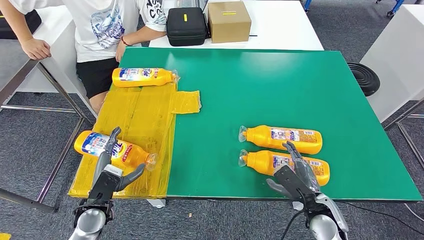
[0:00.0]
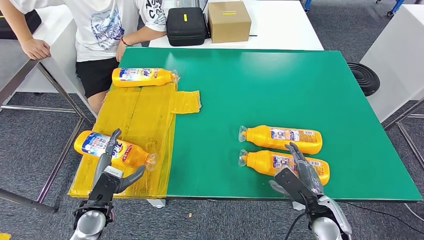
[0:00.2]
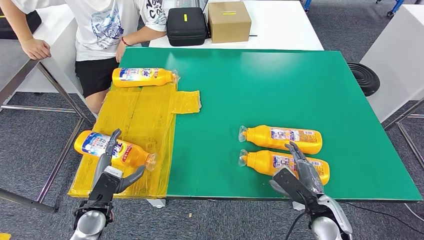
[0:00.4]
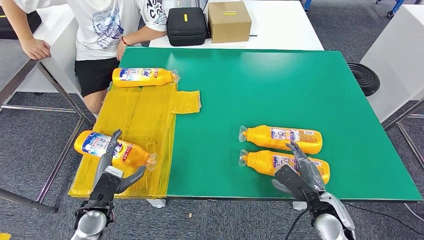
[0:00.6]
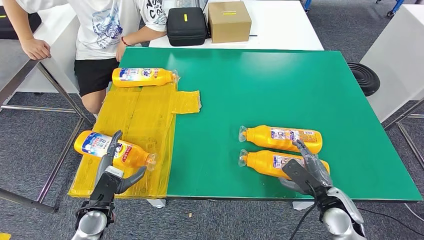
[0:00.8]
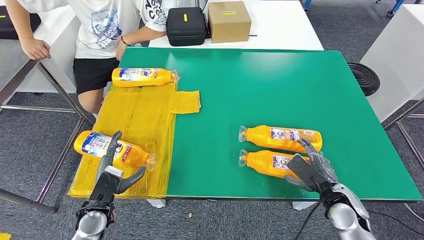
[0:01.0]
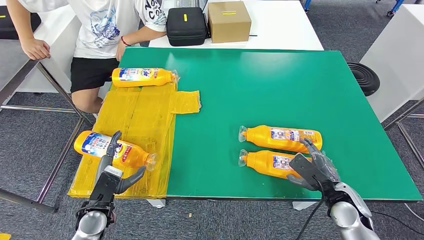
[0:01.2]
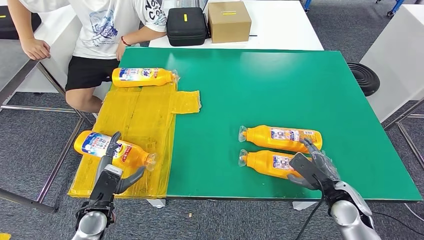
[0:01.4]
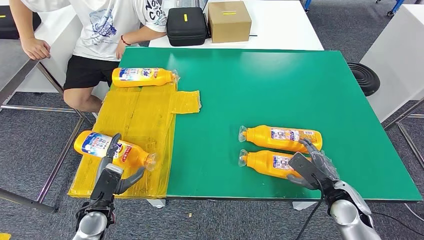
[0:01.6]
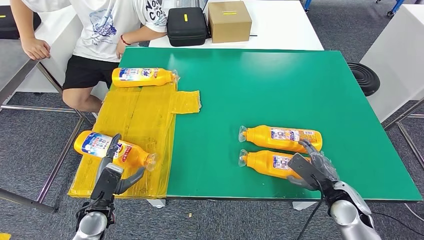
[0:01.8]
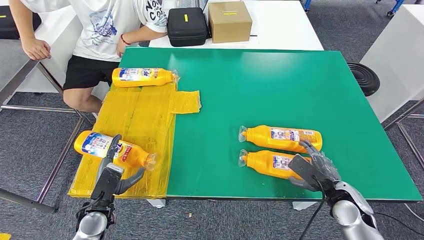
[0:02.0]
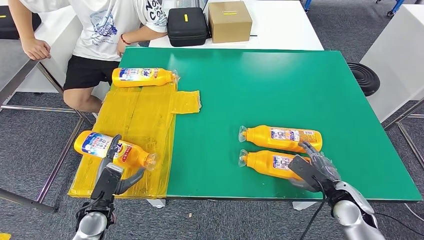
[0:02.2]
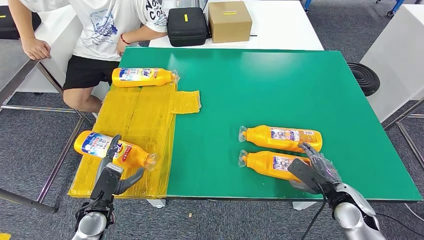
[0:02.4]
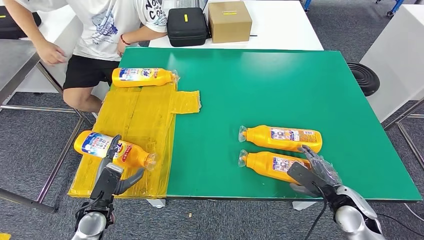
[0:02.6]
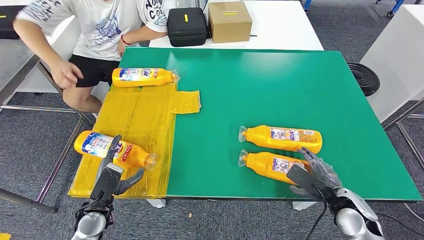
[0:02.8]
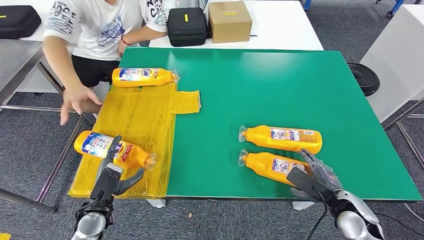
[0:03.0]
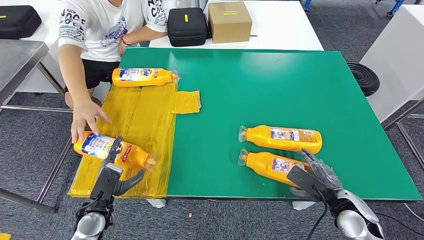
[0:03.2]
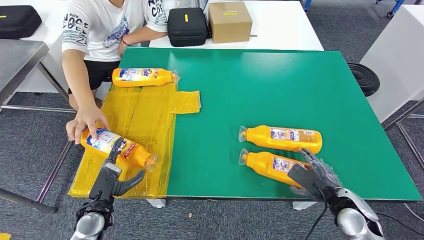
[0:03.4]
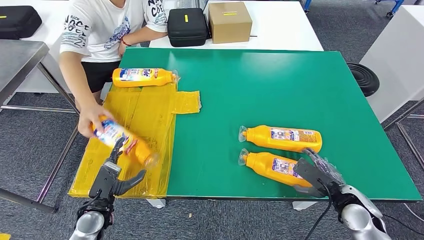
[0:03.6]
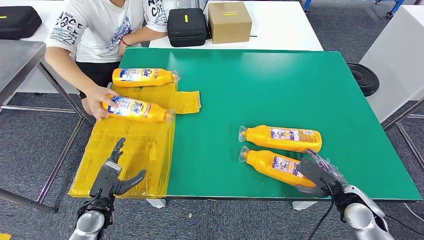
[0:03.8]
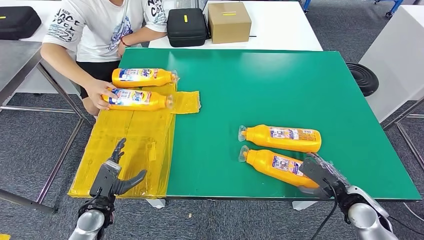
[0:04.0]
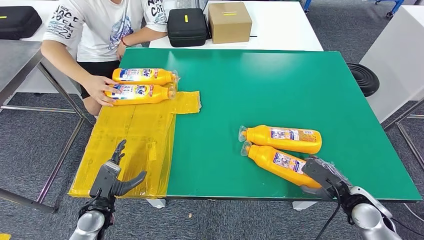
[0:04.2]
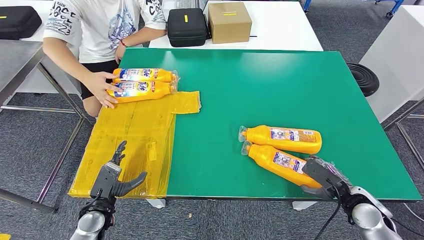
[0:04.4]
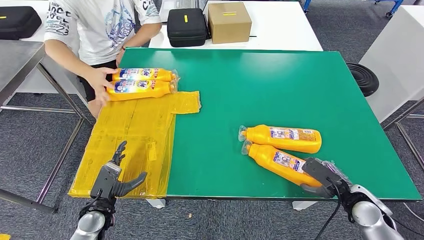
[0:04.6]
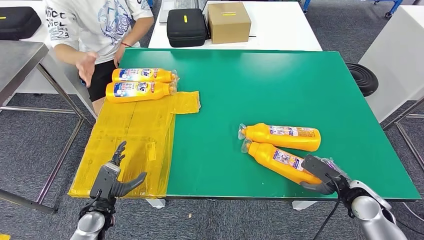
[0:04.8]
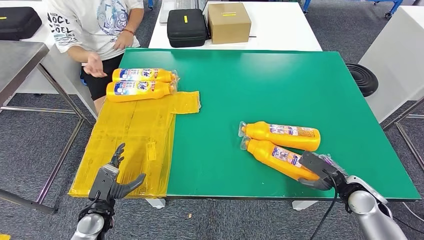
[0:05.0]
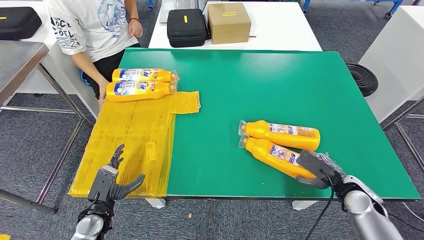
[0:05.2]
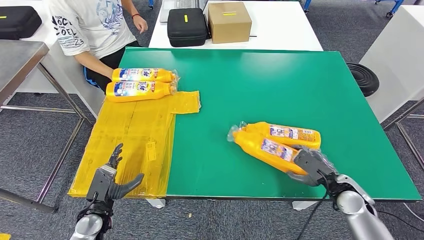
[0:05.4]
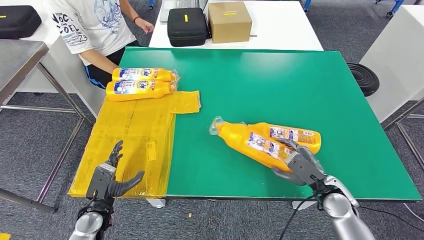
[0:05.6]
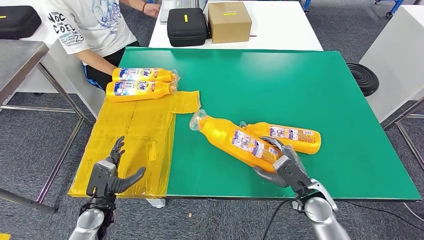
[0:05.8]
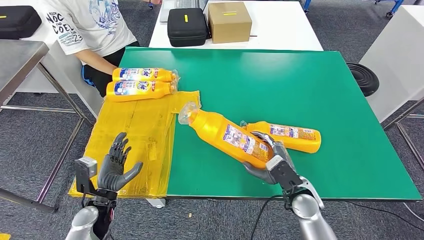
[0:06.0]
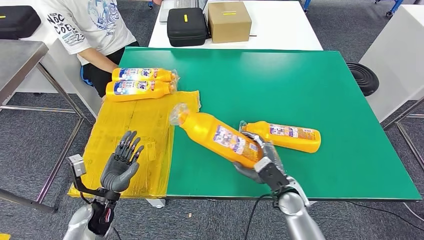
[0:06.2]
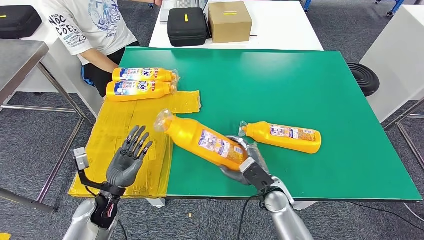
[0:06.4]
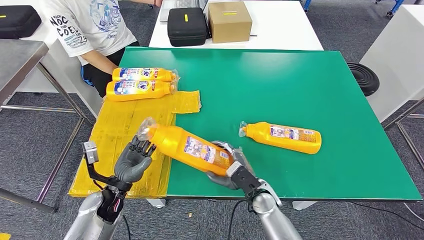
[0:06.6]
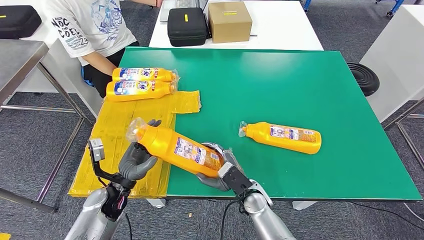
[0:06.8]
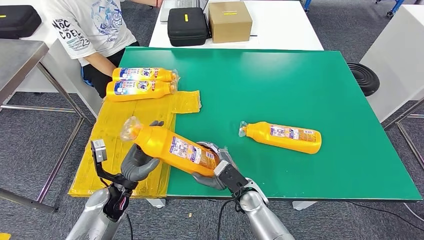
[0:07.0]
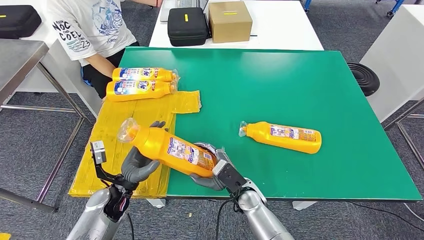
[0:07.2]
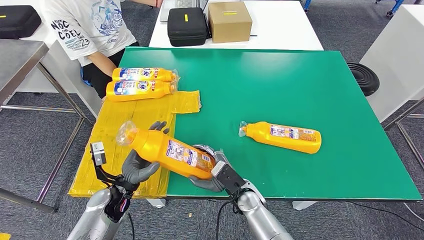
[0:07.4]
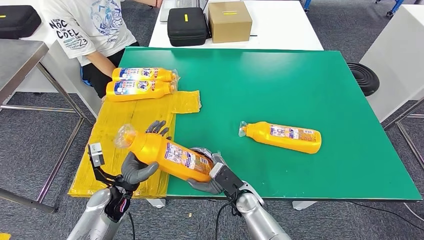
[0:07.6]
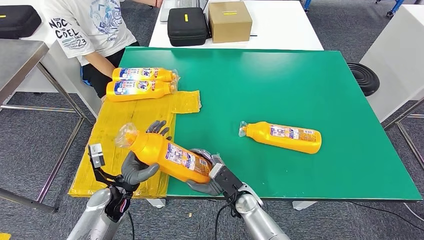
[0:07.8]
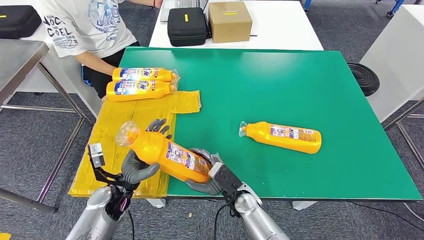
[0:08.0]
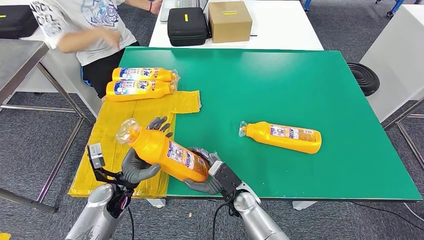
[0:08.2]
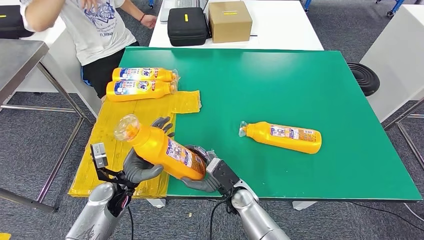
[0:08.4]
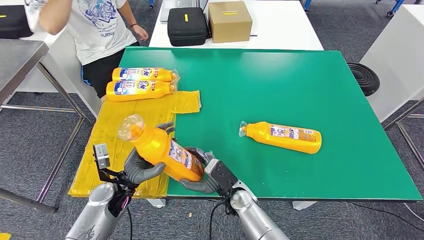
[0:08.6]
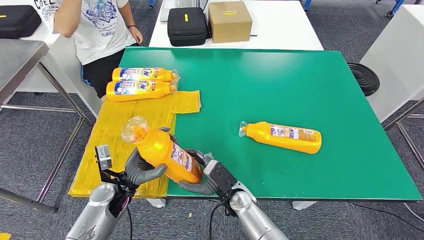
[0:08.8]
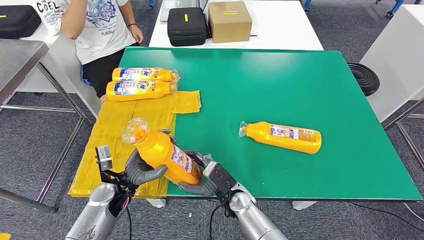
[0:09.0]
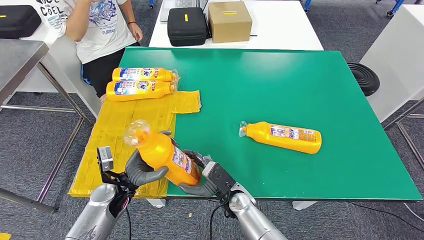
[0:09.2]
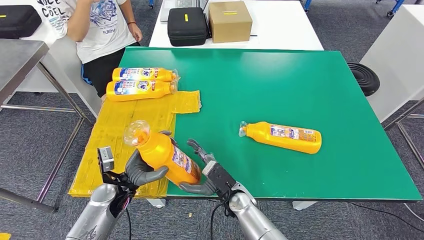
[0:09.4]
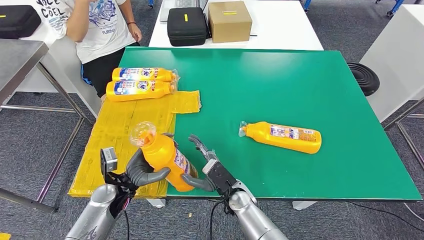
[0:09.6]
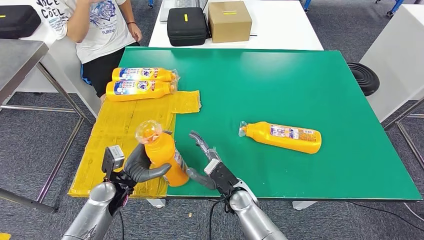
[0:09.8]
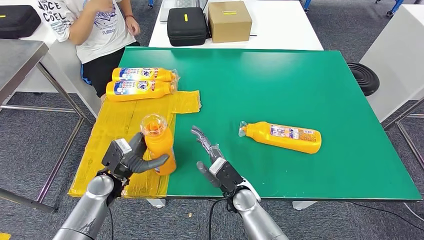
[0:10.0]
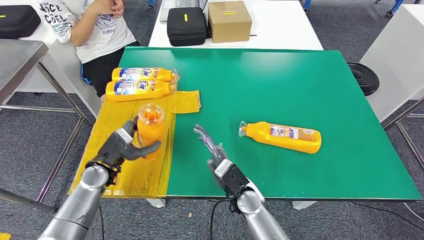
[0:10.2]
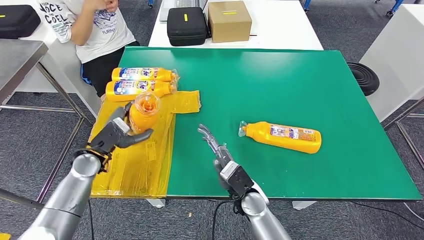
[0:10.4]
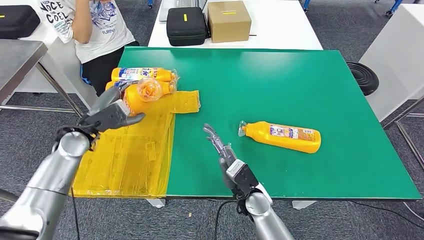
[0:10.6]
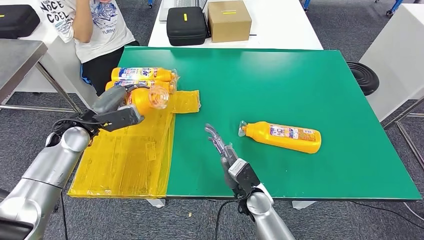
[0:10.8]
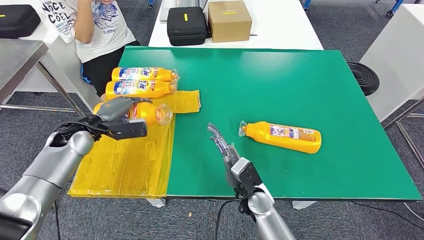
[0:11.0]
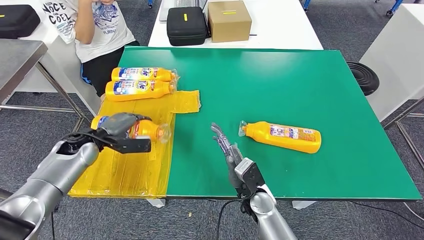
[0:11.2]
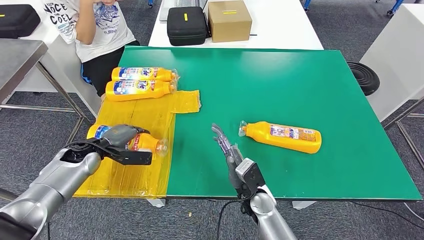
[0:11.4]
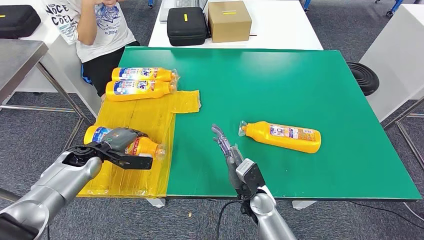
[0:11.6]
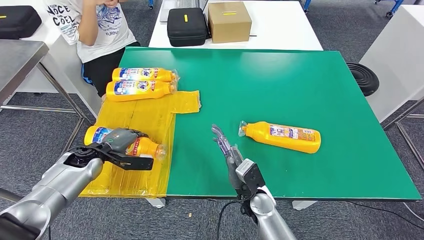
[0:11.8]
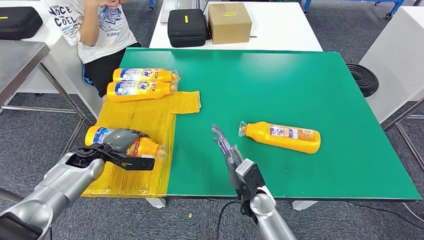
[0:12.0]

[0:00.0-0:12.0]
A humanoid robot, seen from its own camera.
Step, 0.0 to 7.6 s: Pick up the bottle from the table.
0.0 to 1.6 s: The right hand travels to the right by approximately 5 cm.
1.6 to 4.4 s: The hands stay close to where they were, moving slightly.
4.4 to 6.0 s: The right hand travels to the left by roughly 15 cm.
6.0 to 7.6 s: The left hand heads to the right, covering approximately 5 cm. The right hand is displaced to the left by roughly 15 cm.
7.6 to 9.0 s: There are only small adjustments of the hands.
9.0 to 10.4 s: The right hand shifts by approximately 5 cm; the left hand moves forward, to the left and upward, about 10 cm.
10.4 to 12.0 s: The left hand shifts by some 5 cm.

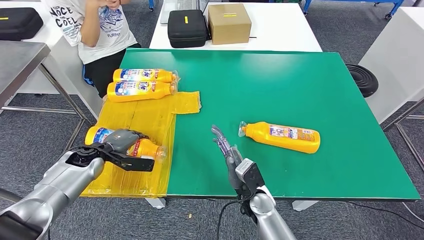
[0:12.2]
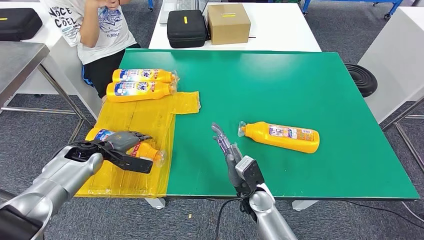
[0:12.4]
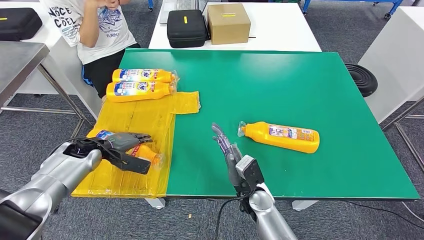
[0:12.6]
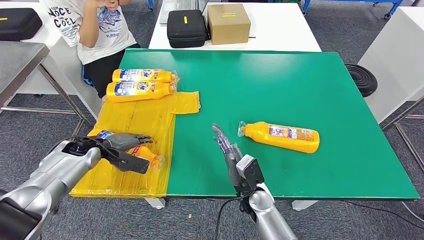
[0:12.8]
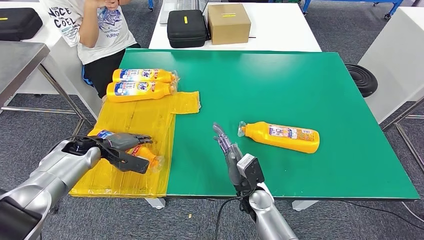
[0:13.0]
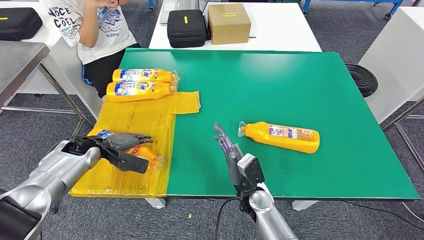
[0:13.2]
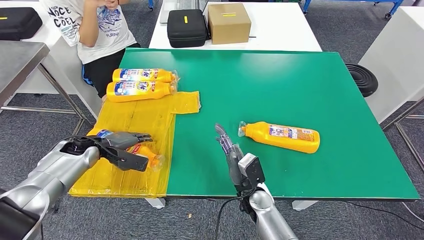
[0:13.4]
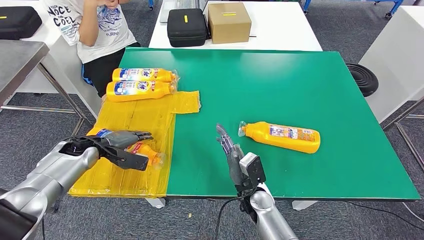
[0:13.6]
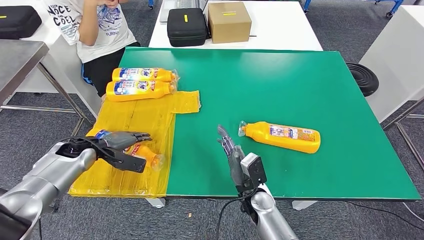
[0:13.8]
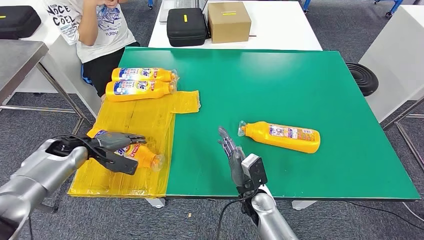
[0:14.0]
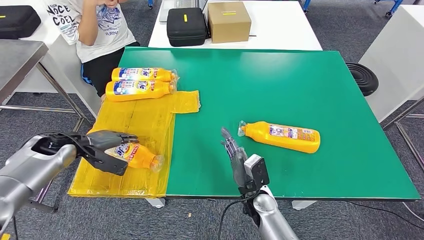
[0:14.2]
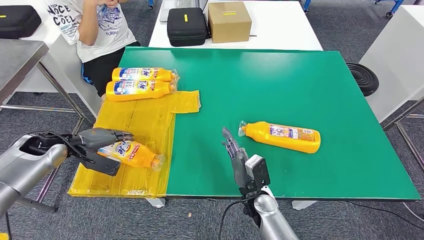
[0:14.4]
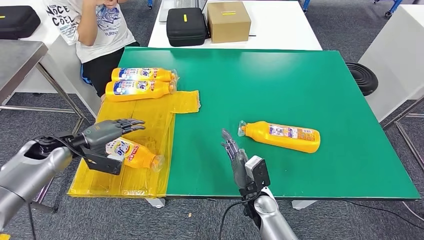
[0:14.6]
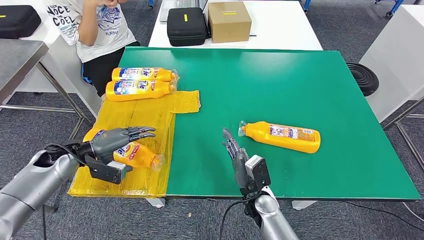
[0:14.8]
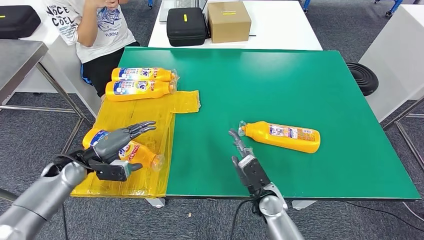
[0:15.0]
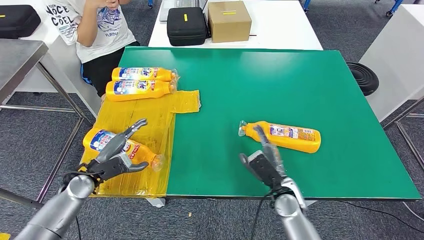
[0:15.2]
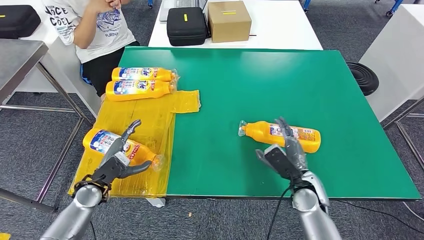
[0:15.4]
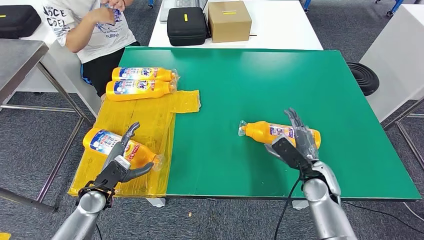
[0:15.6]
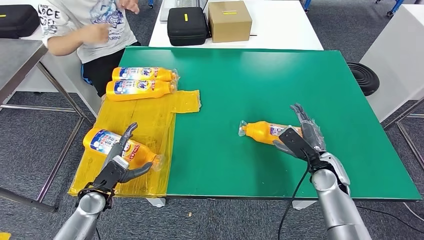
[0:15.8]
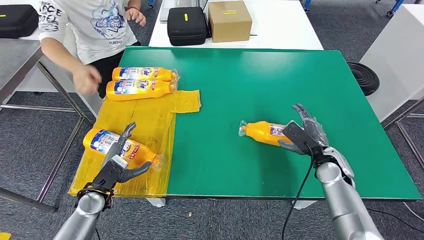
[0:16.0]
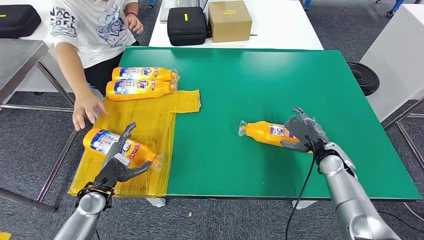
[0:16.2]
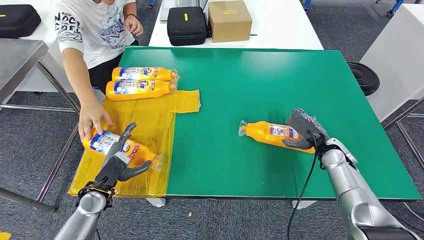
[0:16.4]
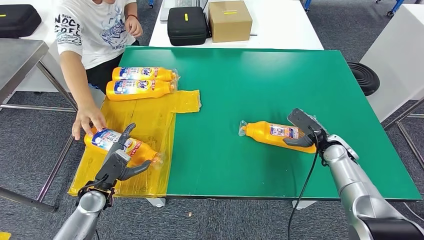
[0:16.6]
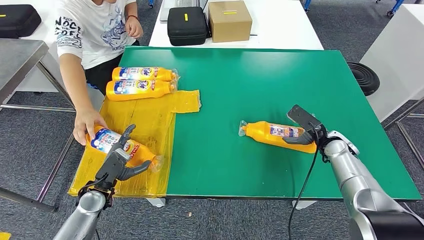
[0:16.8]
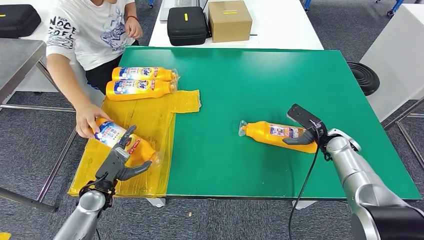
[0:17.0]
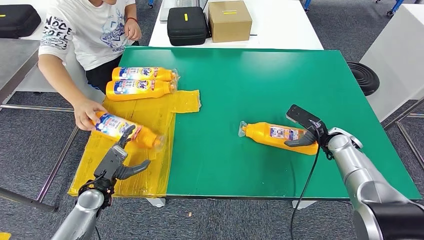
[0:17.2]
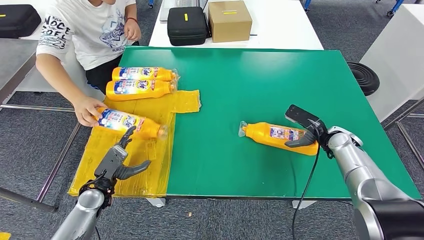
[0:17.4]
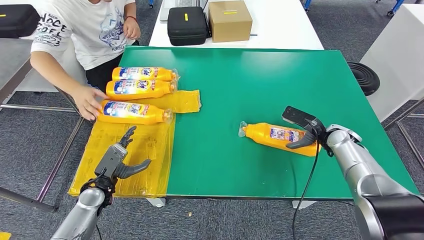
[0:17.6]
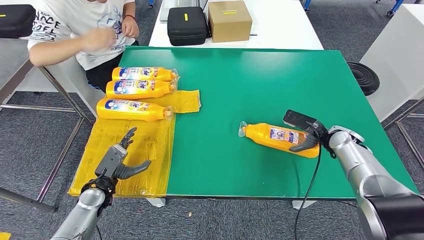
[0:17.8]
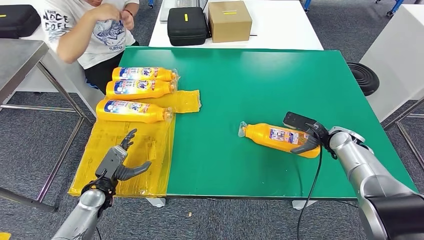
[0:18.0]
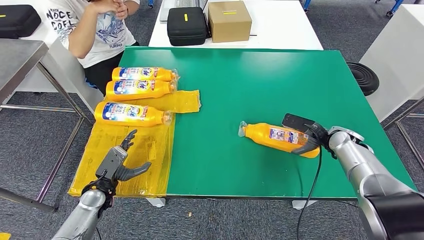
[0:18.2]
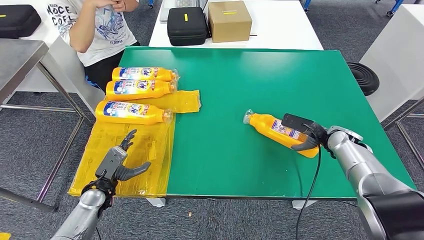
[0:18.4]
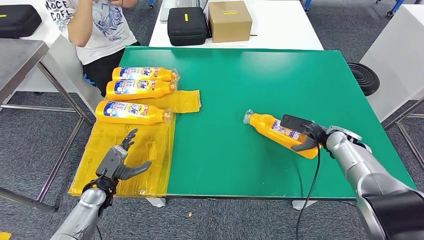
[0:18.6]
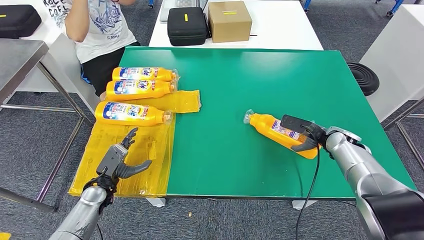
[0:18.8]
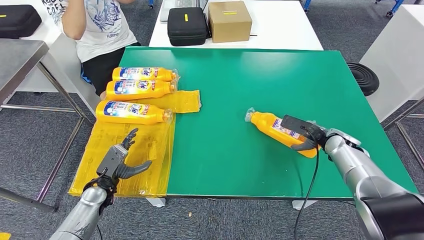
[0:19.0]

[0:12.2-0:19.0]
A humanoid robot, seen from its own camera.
12.2 to 13.6 s: The hands stay close to where they were, moving slightly.
13.6 to 15.0 s: The left hand moves backward, about 5 cm.
16.2 to 17.6 s: The right hand is displaced forward by about 5 cm.
17.6 to 19.0 s: There are only small adjustments of the hands.
